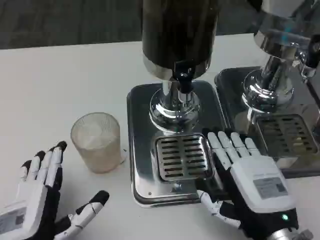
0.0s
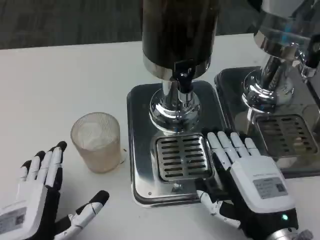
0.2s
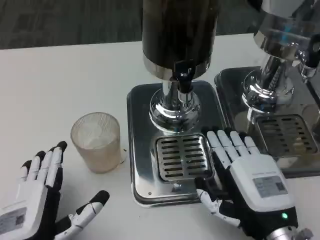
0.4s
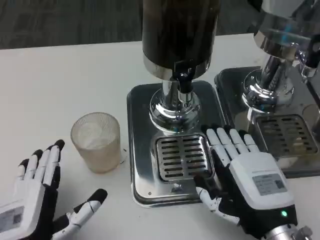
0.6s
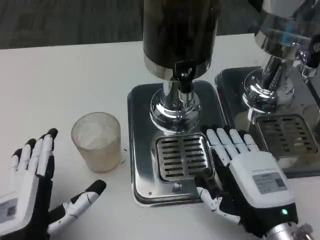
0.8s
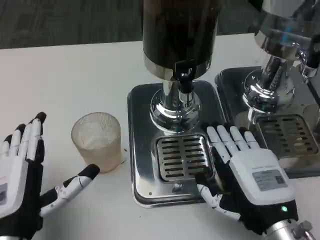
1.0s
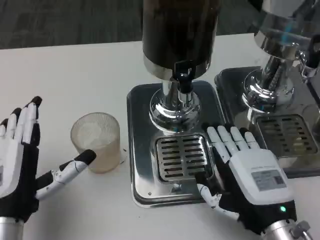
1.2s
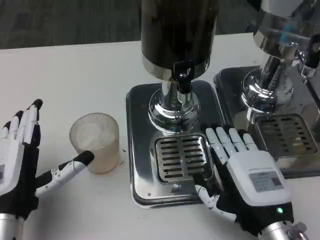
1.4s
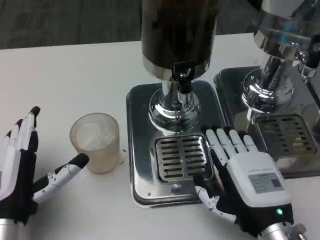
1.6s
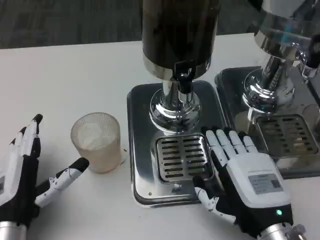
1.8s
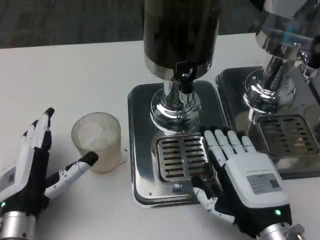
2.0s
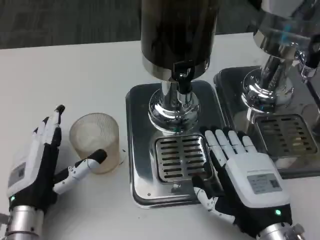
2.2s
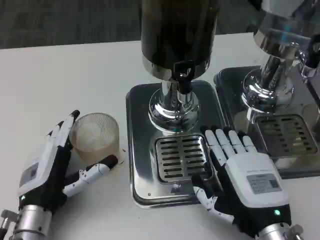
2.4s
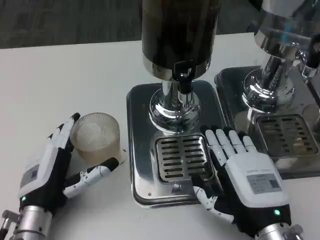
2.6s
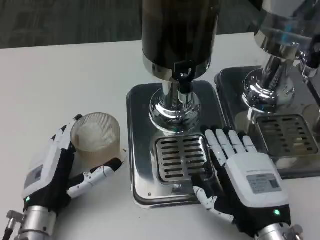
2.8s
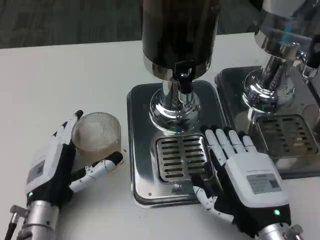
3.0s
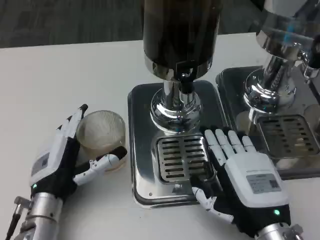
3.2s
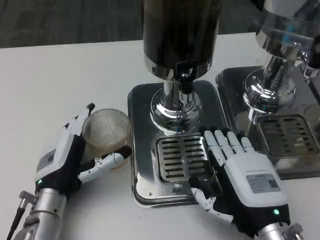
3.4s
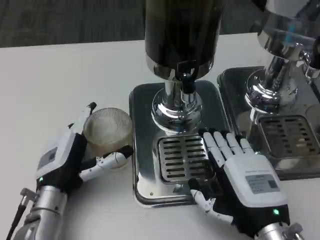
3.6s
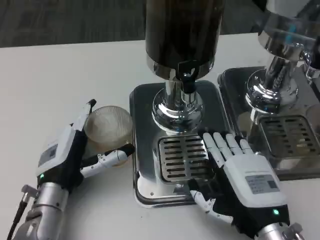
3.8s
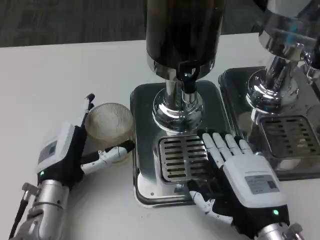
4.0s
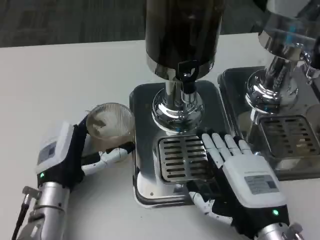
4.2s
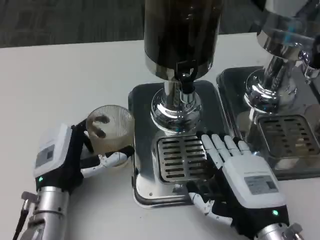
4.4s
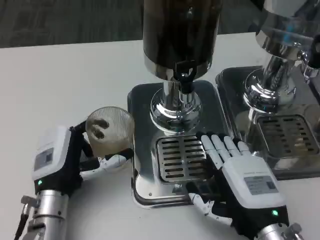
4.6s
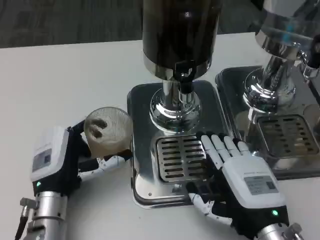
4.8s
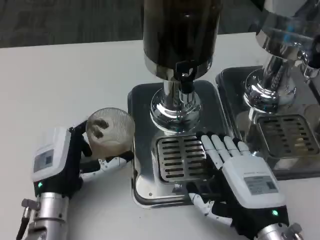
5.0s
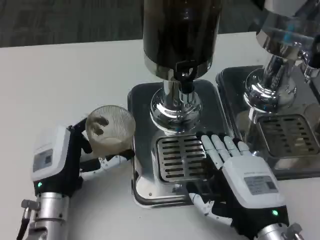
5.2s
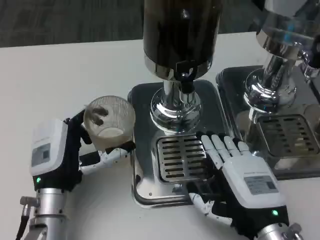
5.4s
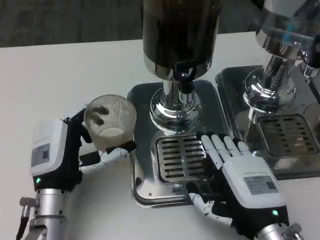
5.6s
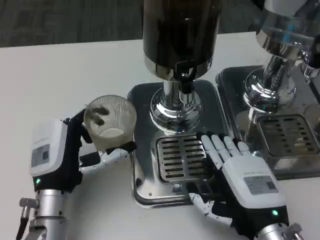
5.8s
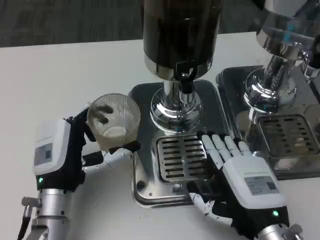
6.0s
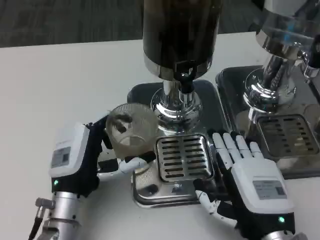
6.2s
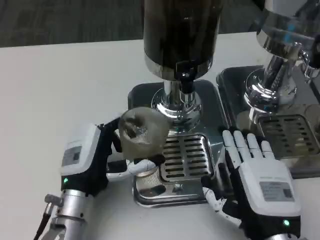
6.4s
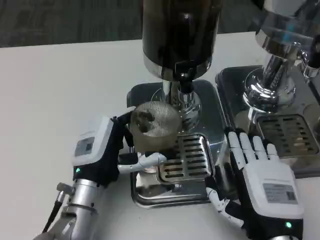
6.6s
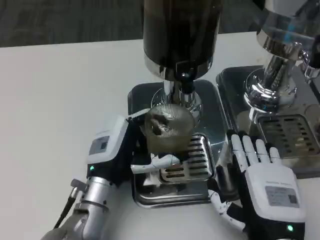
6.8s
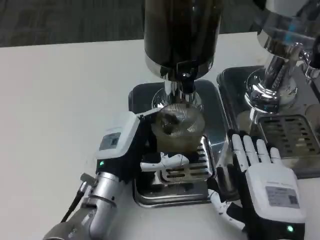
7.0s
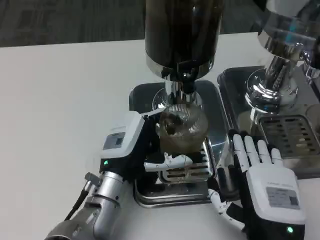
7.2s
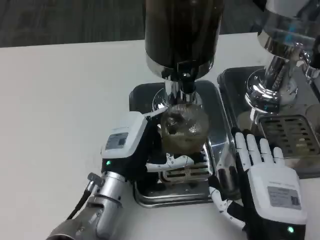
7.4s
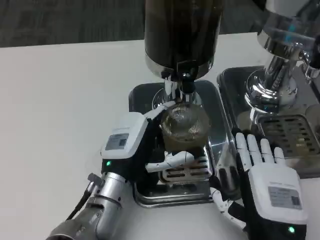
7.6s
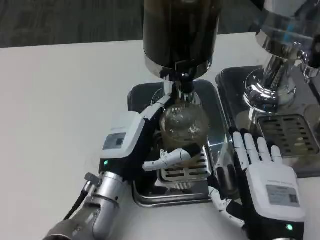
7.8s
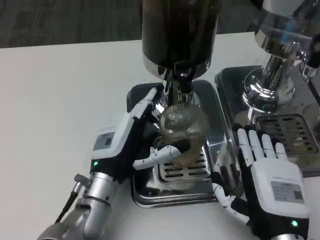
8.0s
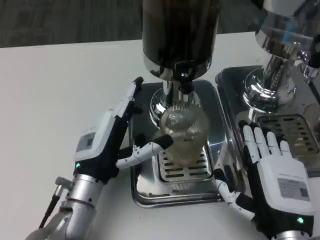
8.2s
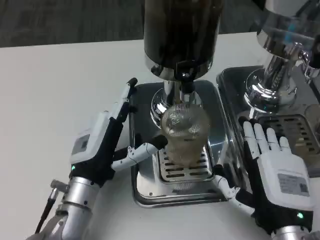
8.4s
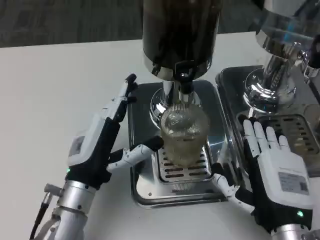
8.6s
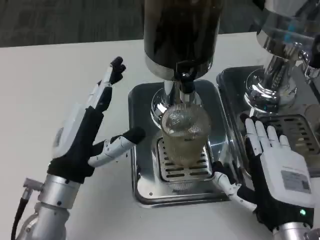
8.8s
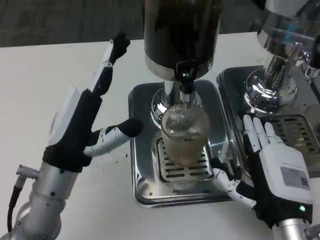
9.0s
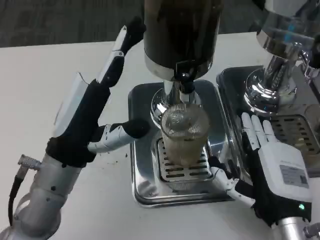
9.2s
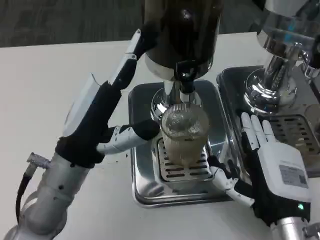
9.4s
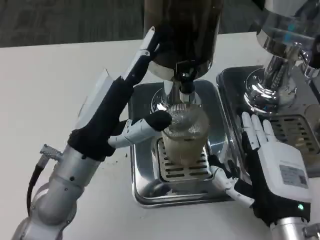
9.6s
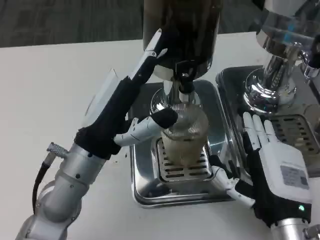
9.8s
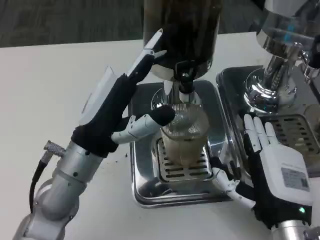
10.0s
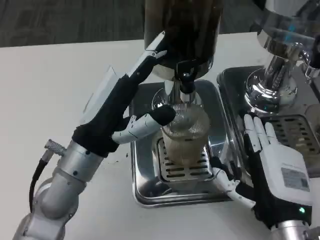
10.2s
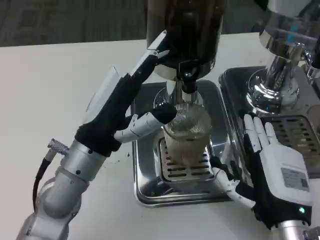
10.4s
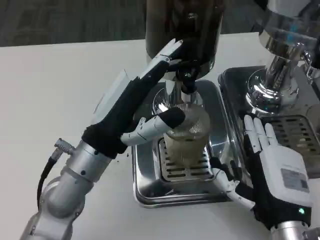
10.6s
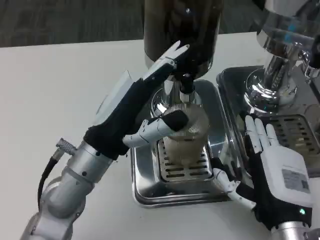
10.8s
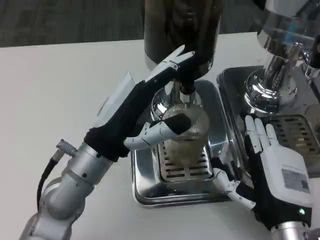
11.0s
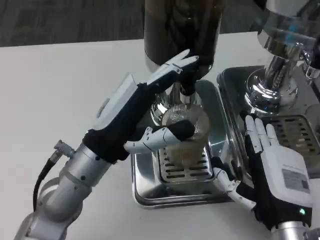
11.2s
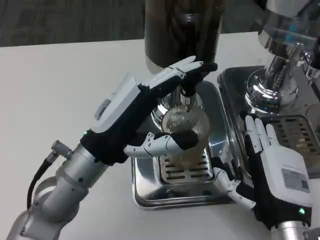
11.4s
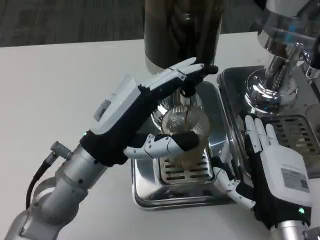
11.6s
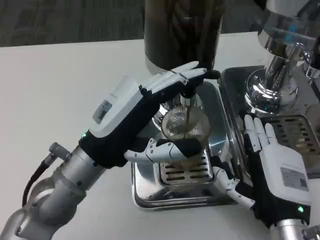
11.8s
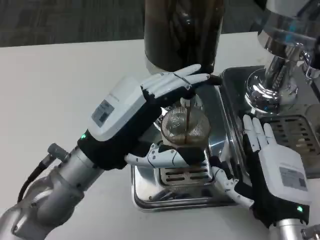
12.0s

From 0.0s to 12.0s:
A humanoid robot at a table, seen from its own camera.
Task of the whole recording: Grasp the cup under the faucet to collect the drink, then remove the cup.
From 0.0s to 1.6s: The left hand travels forward by some 5 cm.
From 1.6s to 3.0s: The left hand moves approximately 5 cm.
From 3.0s to 4.4s: There are only small adjustments of the hands.
From 4.4s to 6.0s: The hands move only a little.
From 6.0s to 7.6s: The left hand goes approximately 5 cm to the right.
From 7.6s to 9.0s: The left hand is displaced upward and to the left by about 10 cm.

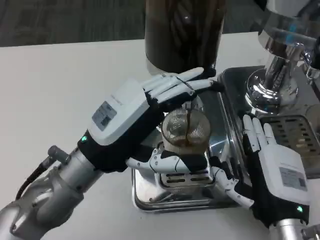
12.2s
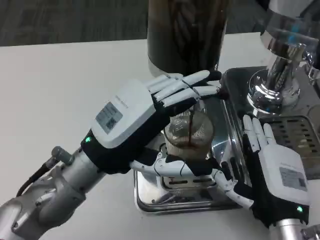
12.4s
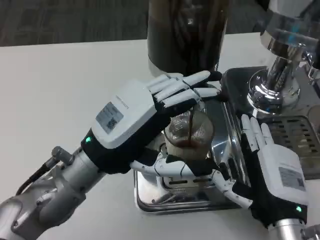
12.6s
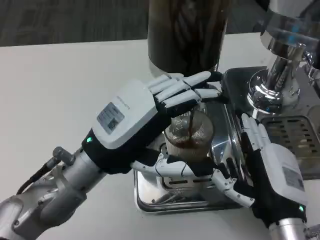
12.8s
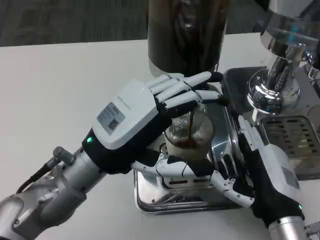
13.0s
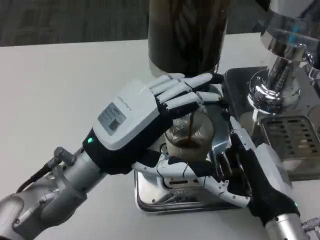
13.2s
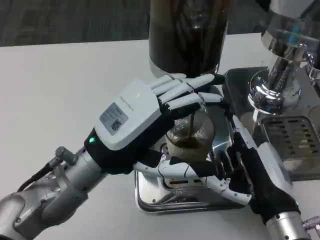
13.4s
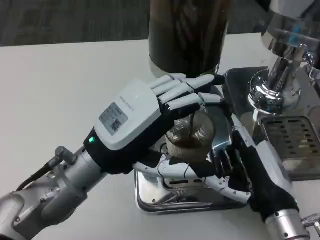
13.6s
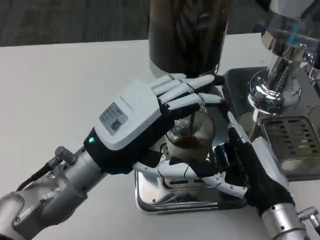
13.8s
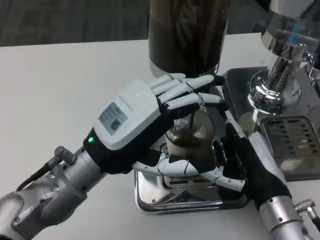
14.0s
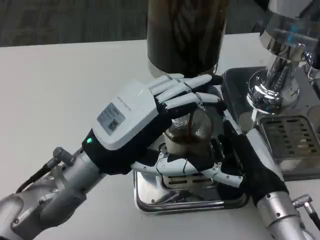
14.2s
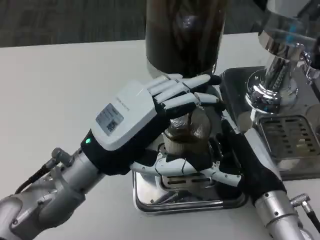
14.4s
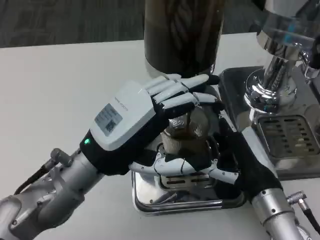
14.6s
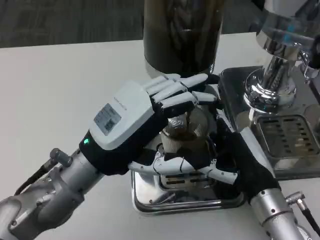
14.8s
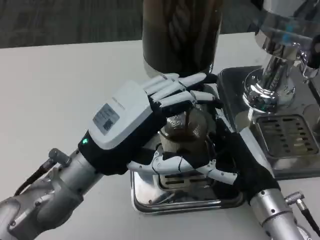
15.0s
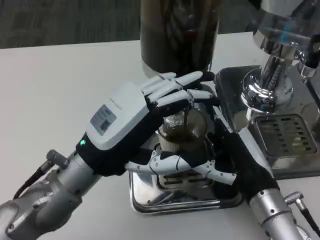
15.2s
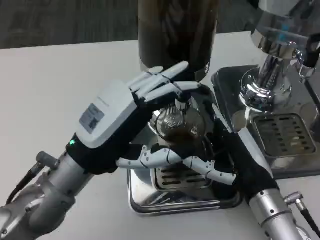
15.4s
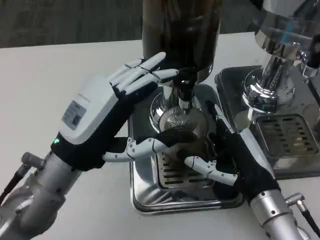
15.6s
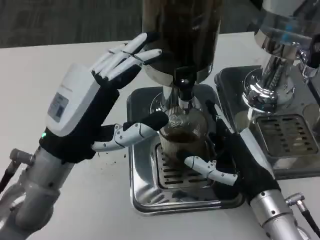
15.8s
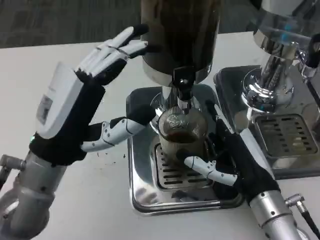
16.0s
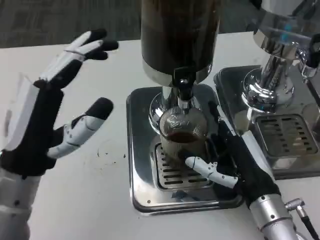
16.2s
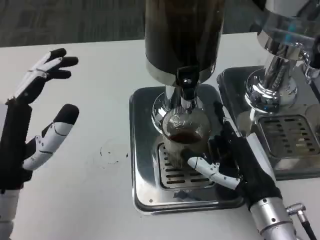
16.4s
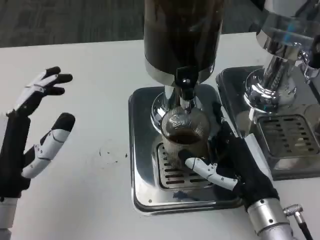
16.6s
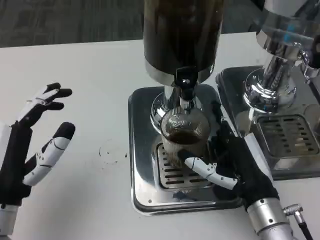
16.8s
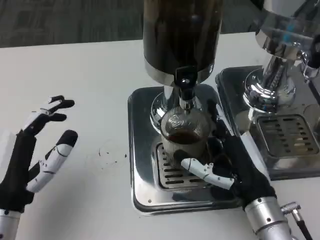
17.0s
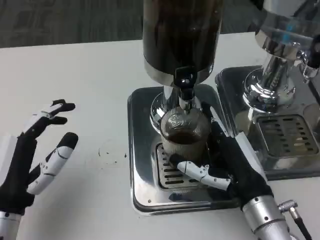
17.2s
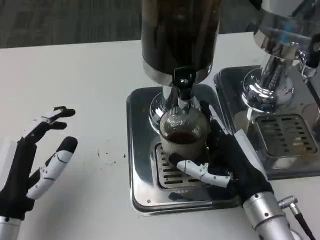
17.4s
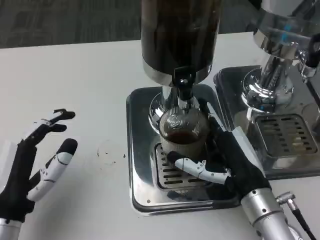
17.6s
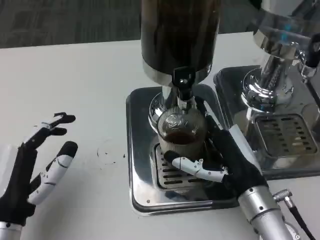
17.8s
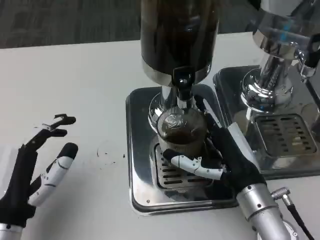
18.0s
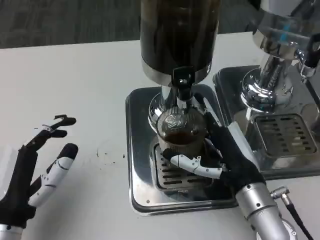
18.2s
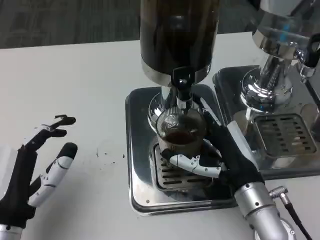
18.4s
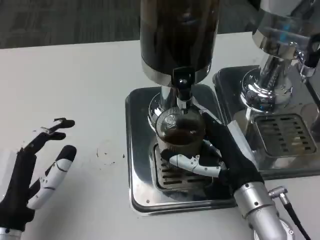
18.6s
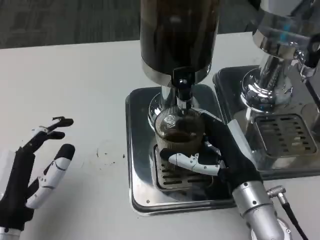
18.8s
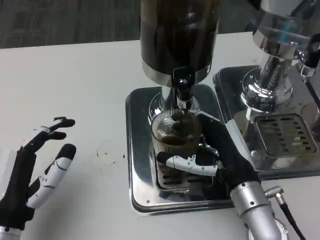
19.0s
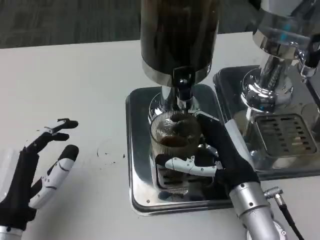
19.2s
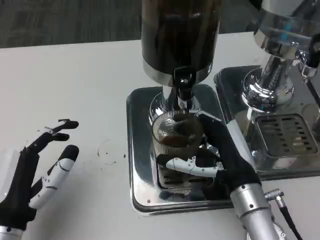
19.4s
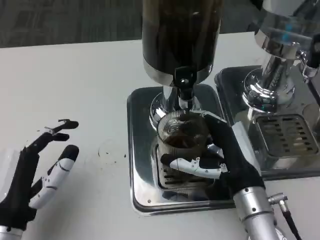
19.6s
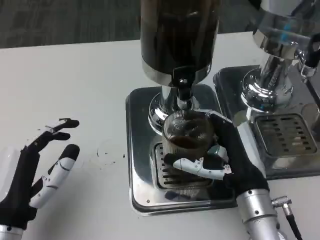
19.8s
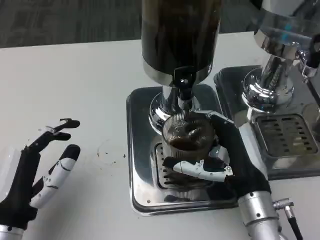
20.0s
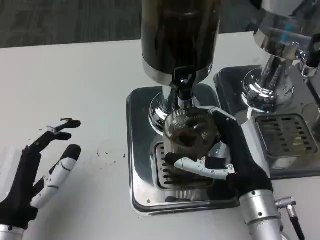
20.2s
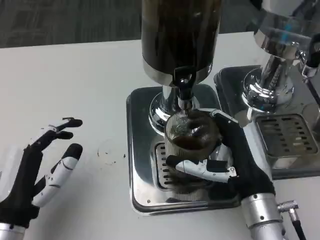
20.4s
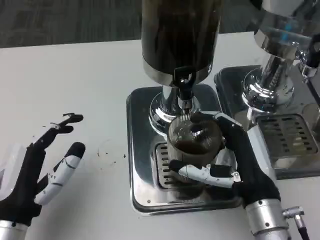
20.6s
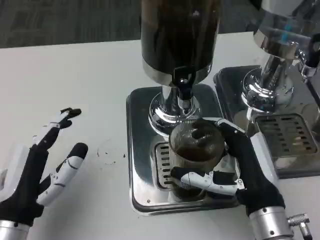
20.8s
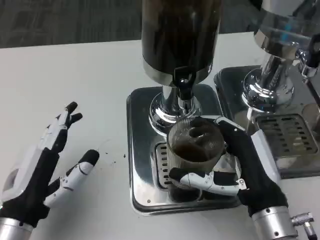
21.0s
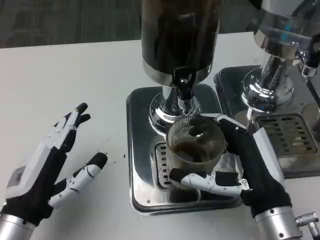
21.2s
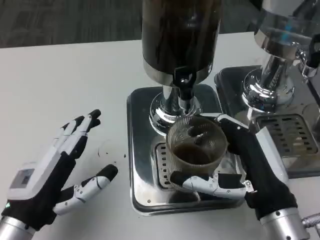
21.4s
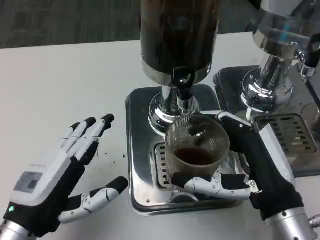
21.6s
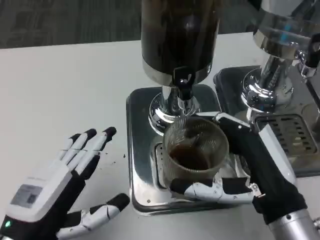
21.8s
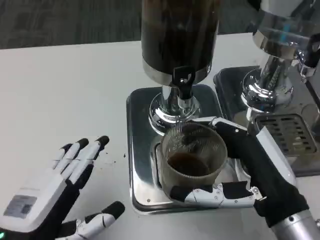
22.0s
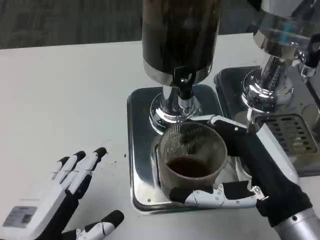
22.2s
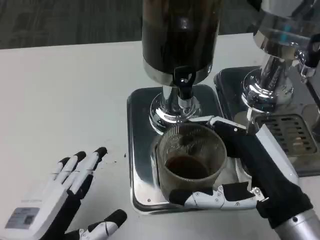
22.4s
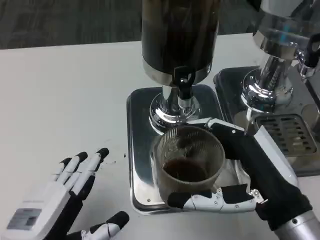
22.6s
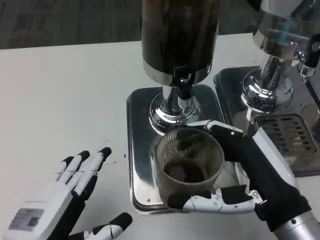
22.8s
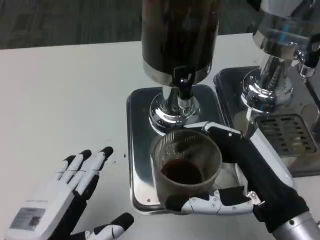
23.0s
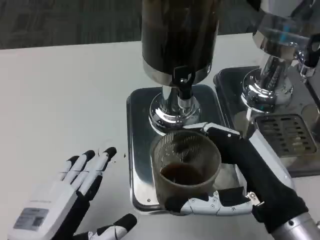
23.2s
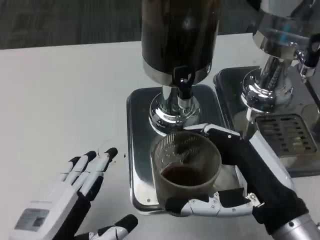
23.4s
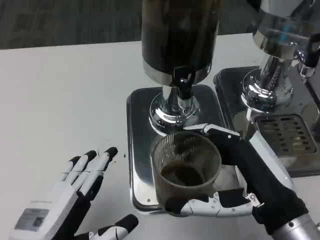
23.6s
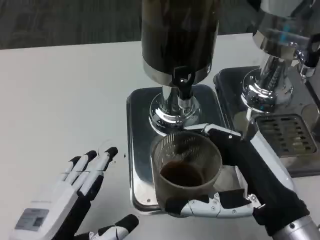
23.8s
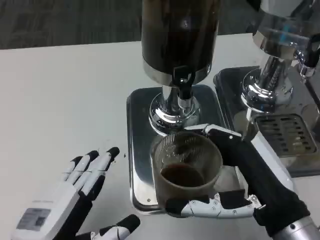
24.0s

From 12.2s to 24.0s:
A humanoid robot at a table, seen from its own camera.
Task of the whole recording: Grasp the cup under the faucet to collect the drink, then remove the cup.
From 15.2s to 16.6s: The left hand moves to the left and backward, some 10 cm.
From 18.2s to 19.6s: There are only small adjustments of the hands.
From 21.0s to 22.6s: The left hand is displaced backward by approximately 5 cm, while the right hand is displaced upward by some 5 cm.
From 22.6s to 24.0s: Both hands stay put.
